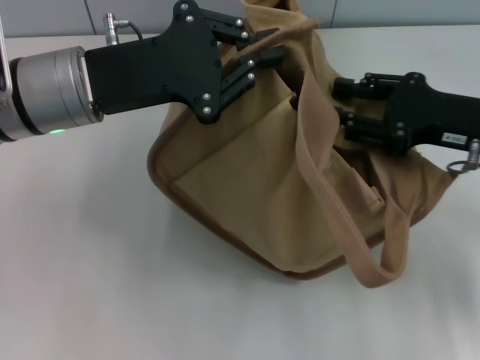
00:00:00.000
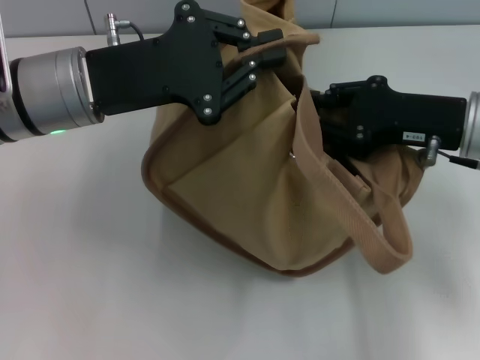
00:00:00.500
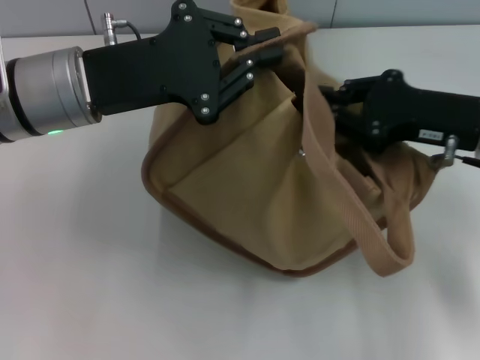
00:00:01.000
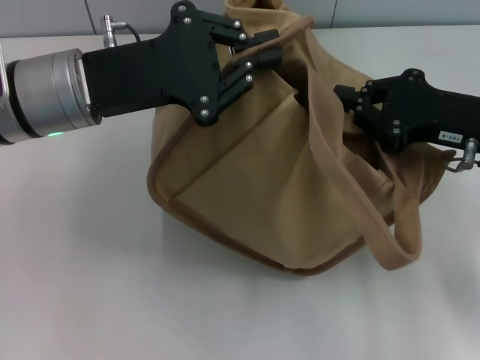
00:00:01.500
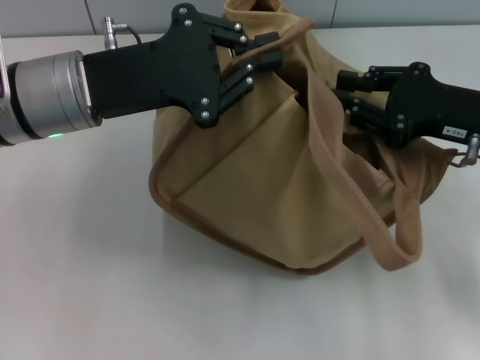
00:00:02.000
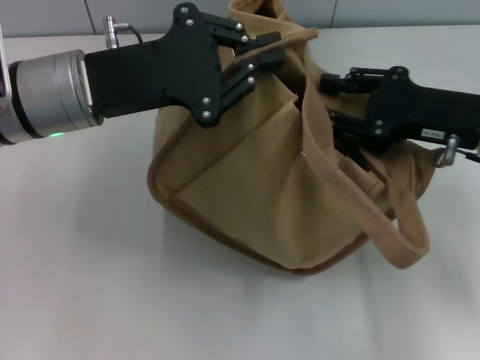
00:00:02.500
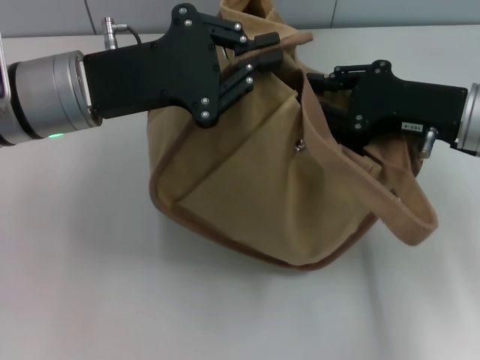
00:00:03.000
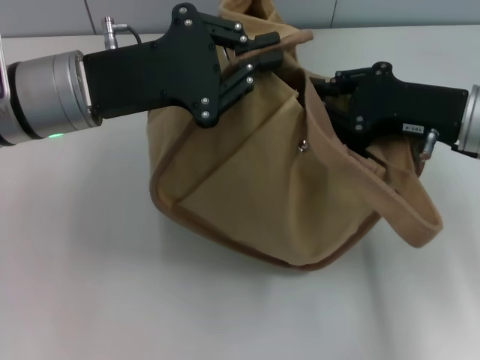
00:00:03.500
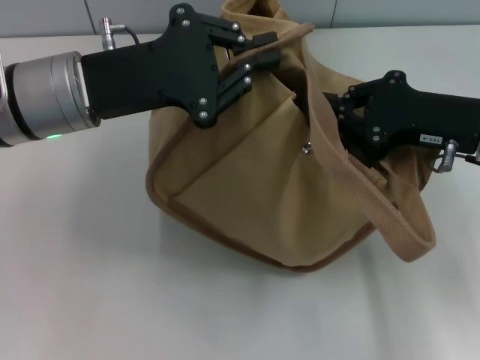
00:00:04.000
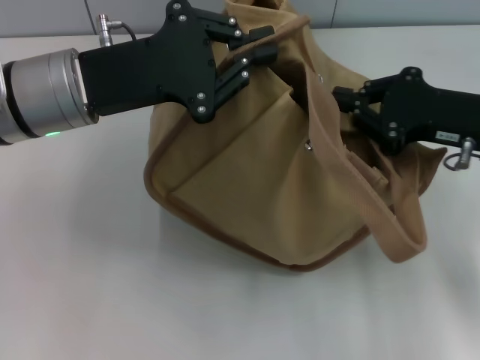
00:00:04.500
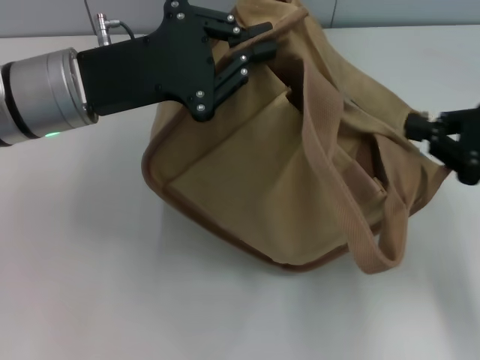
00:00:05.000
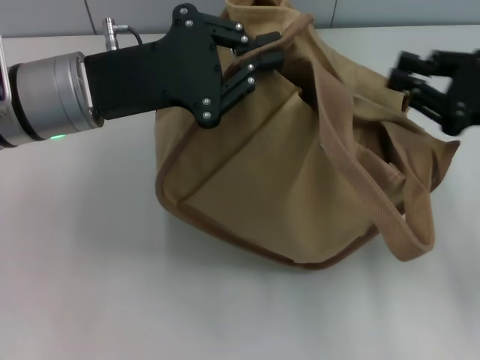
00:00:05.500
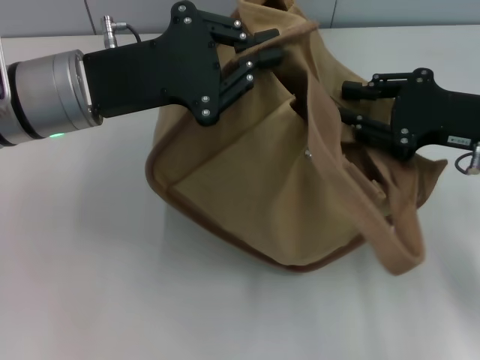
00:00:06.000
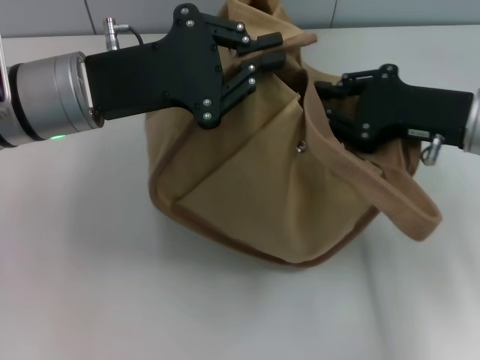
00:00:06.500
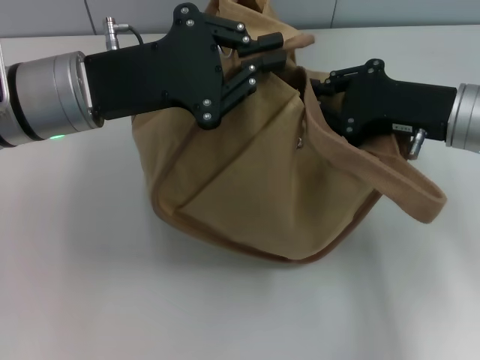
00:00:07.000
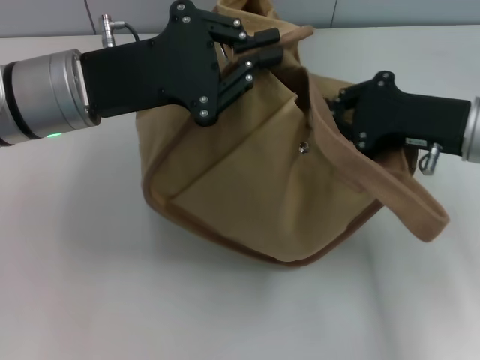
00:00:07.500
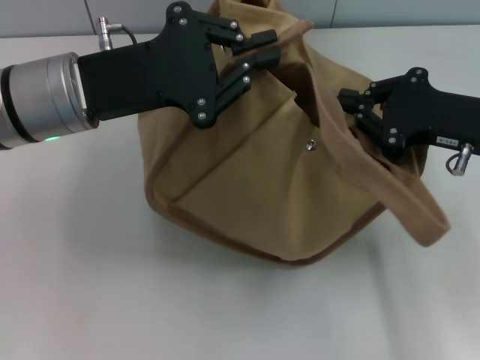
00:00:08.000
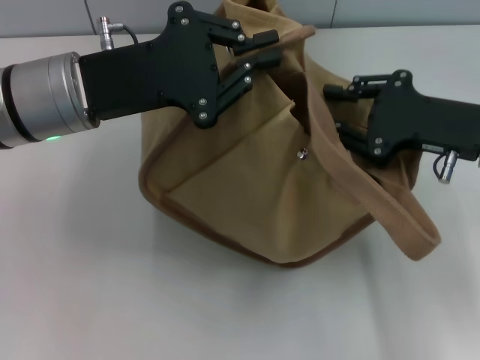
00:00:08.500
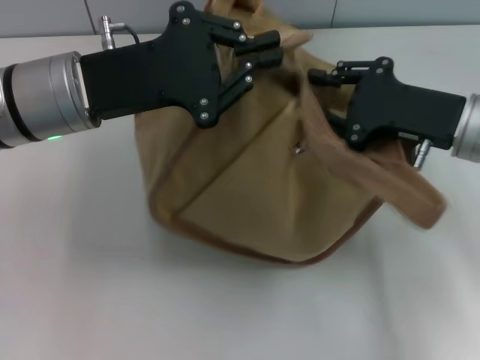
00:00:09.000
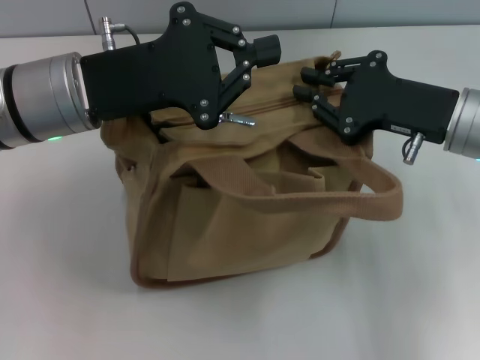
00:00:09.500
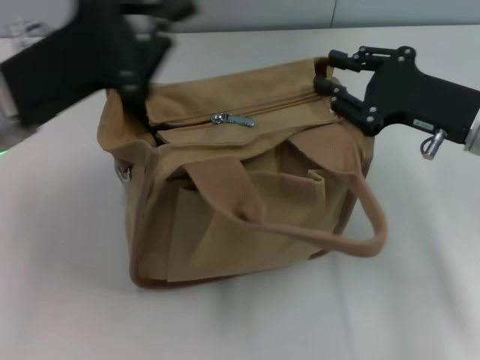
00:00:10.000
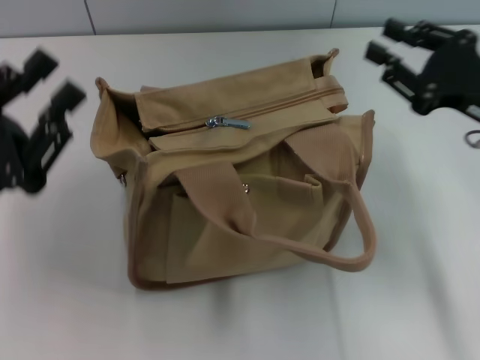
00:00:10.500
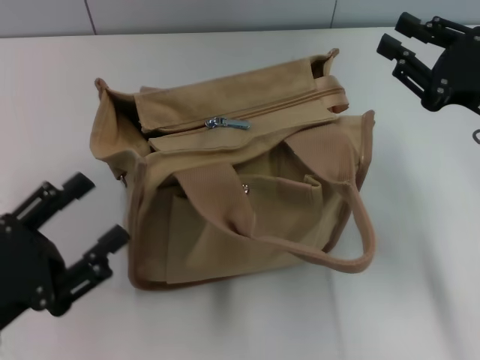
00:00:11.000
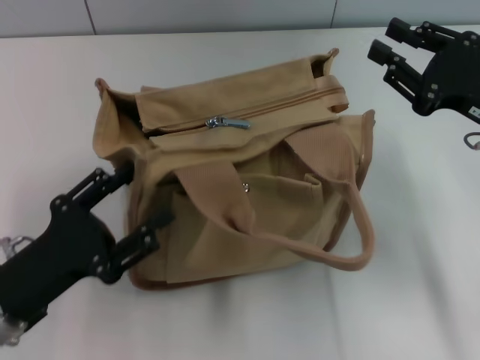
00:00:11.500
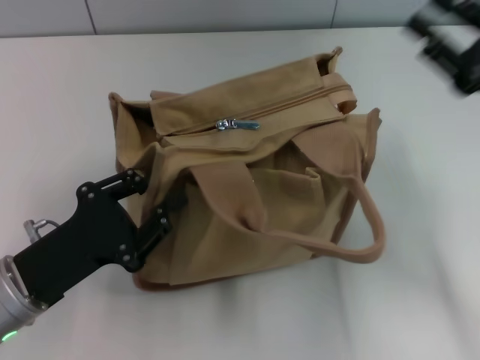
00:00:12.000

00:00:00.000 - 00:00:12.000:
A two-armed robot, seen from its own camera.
00:00:00.000 - 00:00:02.000: The right gripper closes.
00:00:02.000 - 00:00:04.000: The right gripper opens, then closes once more.
00:00:04.000 - 00:00:06.000: The right gripper goes to the right and returns, some 10 cm each way, and opens up.
00:00:06.000 - 00:00:08.000: The right gripper closes.
00:00:08.000 - 00:00:10.000: The left gripper changes place by roughly 5 cm.
00:00:10.000 - 00:00:12.000: The right gripper moves to the right, approximately 5 cm, while the left gripper travels downward and backward by about 15 cm, and opens its fingers.

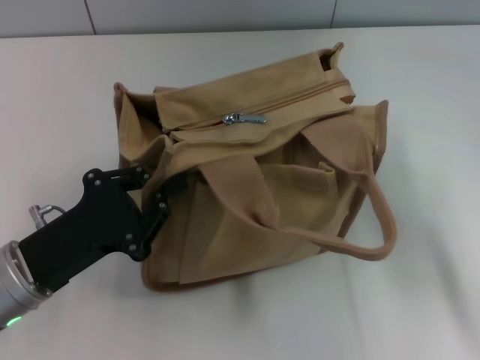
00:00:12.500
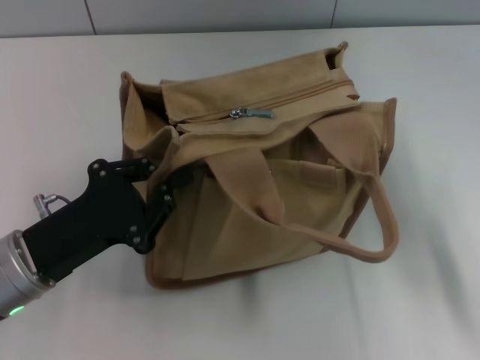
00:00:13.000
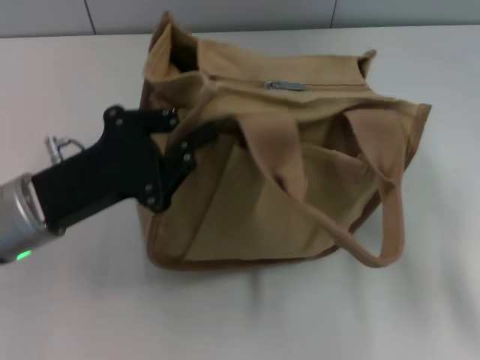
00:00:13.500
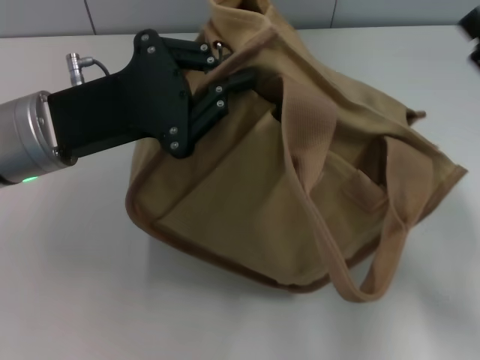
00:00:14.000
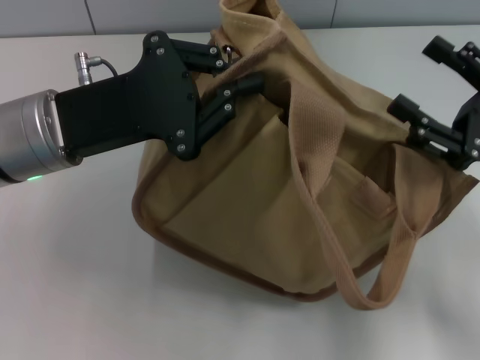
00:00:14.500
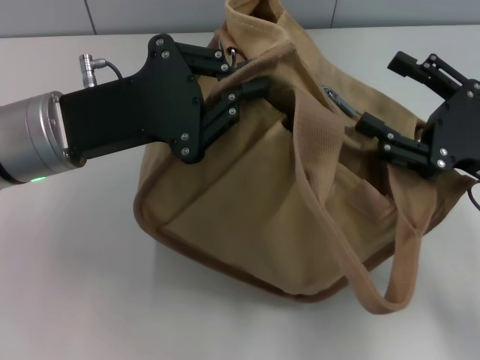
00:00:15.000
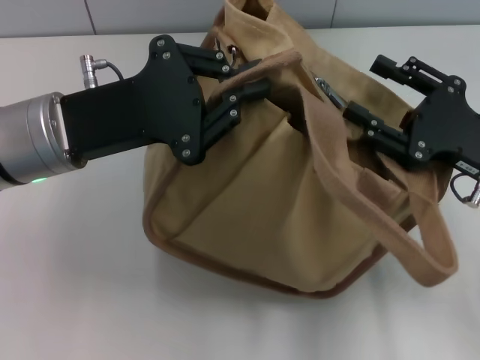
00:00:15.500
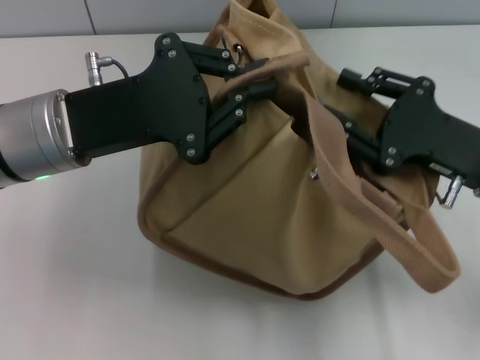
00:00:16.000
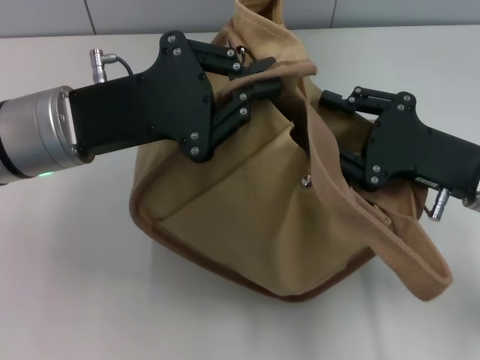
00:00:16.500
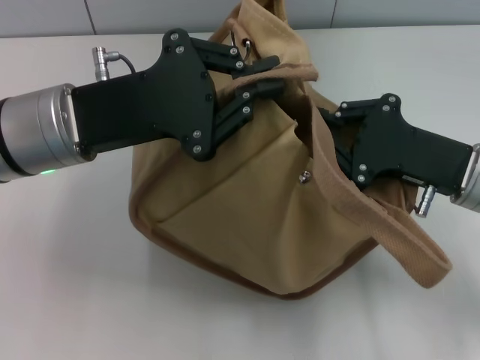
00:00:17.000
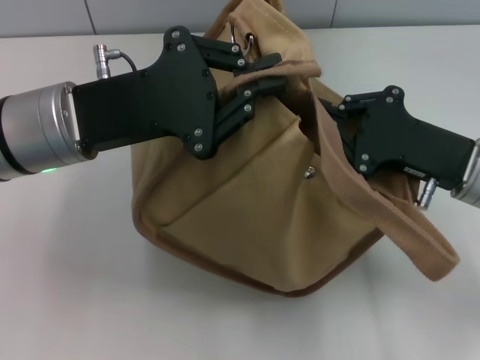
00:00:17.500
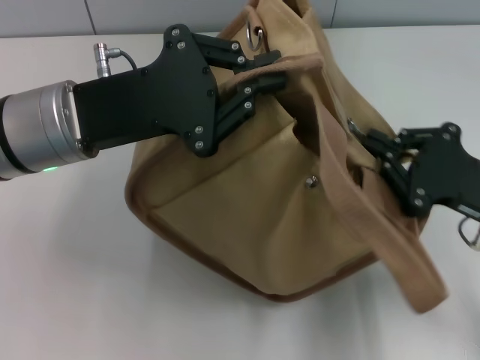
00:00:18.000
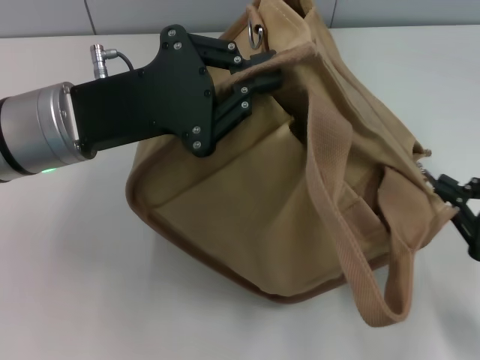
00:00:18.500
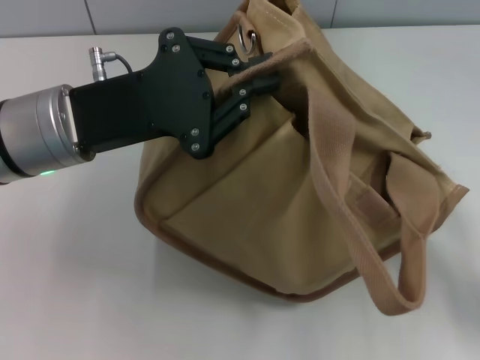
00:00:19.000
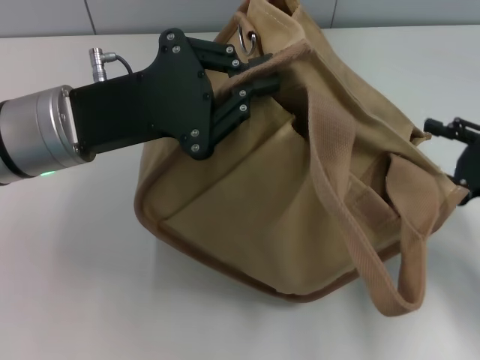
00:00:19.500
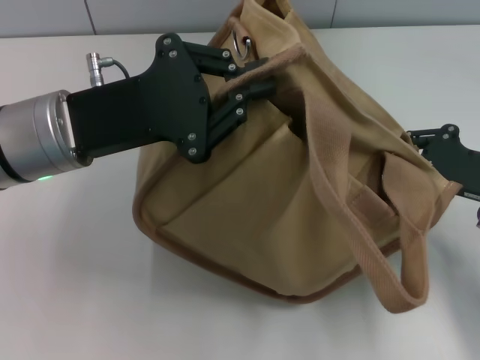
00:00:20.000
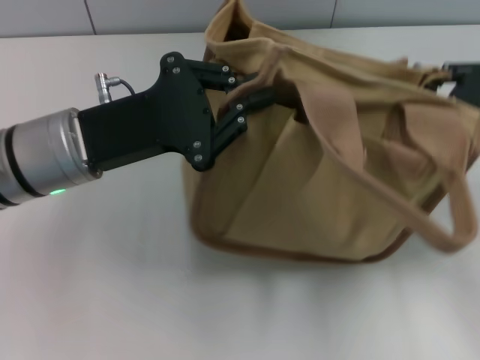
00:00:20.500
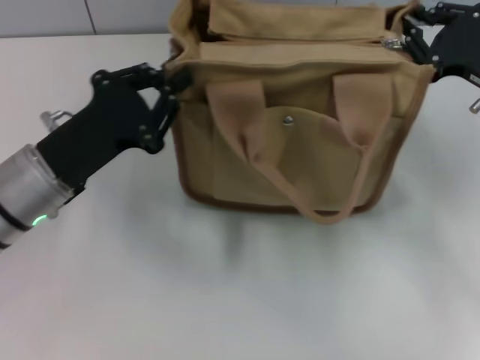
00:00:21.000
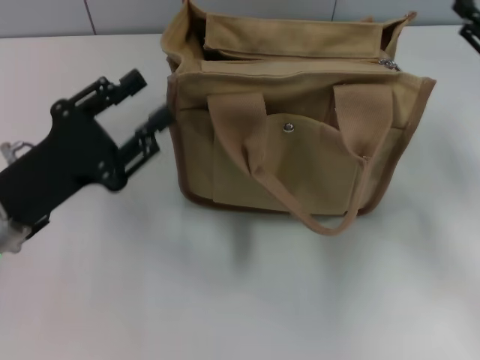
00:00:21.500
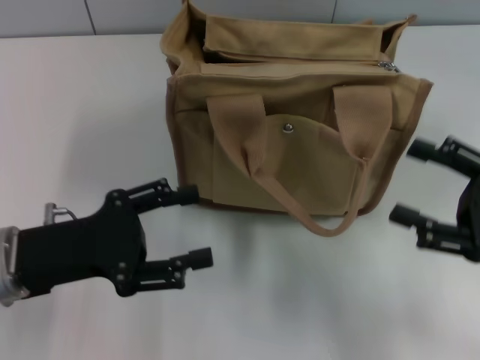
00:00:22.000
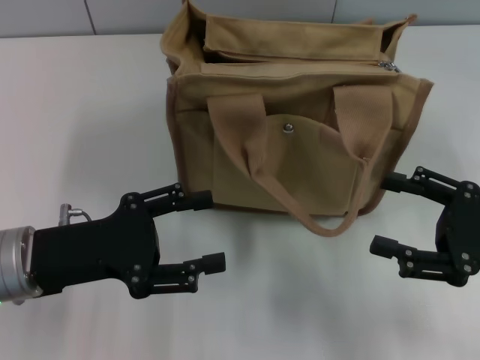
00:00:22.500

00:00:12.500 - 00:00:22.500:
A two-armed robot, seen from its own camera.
Step, 00:00:12.500 - 00:00:19.000: Pull open the zipper with your right hand.
Step, 00:00:19.500 - 00:00:21.500: Grab the bag with your left hand.
00:00:12.500 - 00:00:14.500: The left gripper heads upward and forward, covering some 15 cm. The right gripper opens up.
00:00:14.500 - 00:00:16.500: The right gripper moves about 5 cm, and closes up.
00:00:16.500 - 00:00:18.500: The right gripper goes about 10 cm to the right and backward, and closes its fingers.
00:00:18.500 - 00:00:20.500: The right gripper moves forward, about 10 cm, and opens, then closes once more.
00:00:20.500 - 00:00:22.500: The right gripper is displaced backward by about 10 cm, and opens its fingers. The left gripper goes roughly 10 cm backward, to the left and downward, and opens its fingers.
